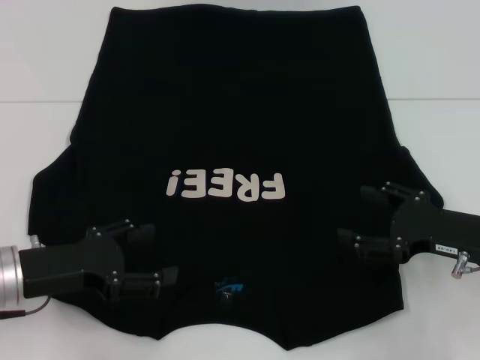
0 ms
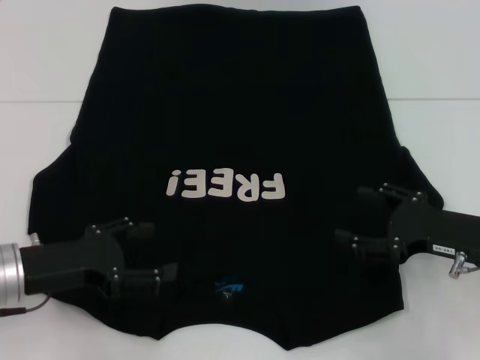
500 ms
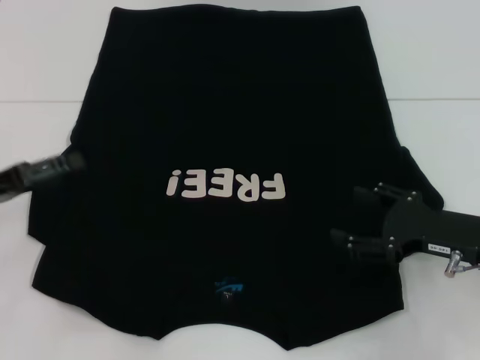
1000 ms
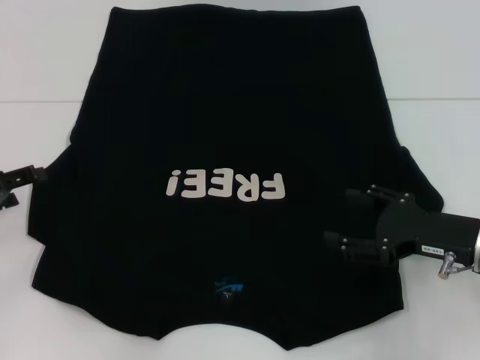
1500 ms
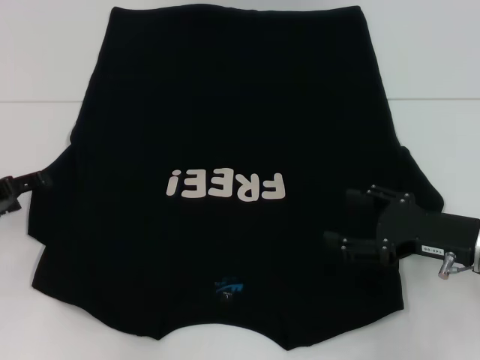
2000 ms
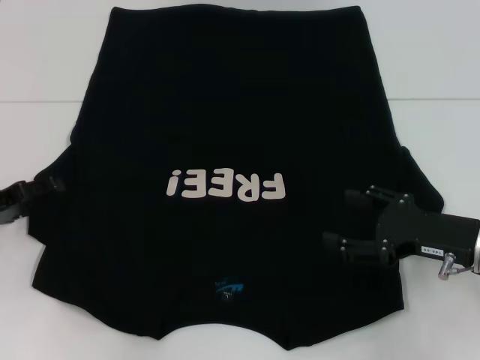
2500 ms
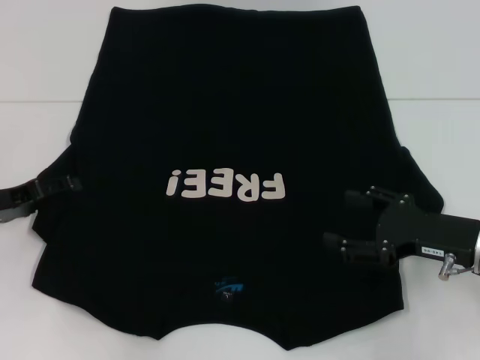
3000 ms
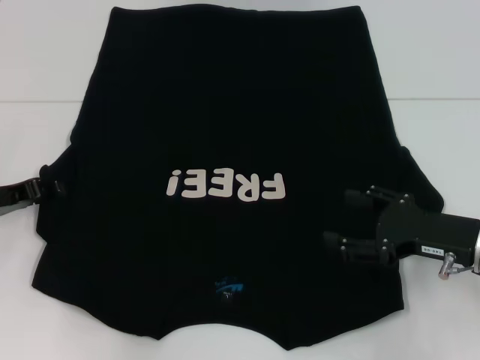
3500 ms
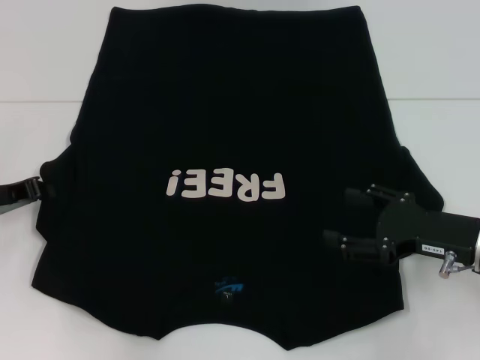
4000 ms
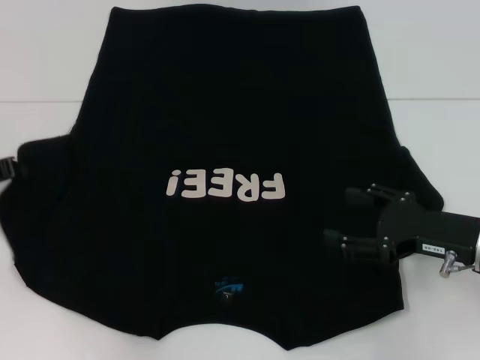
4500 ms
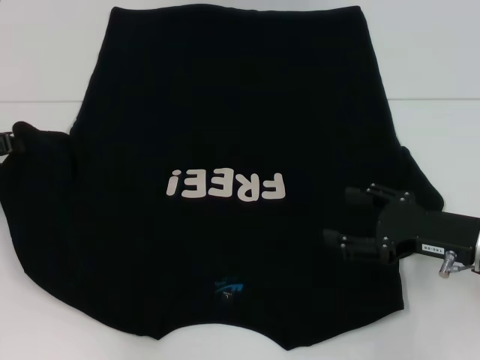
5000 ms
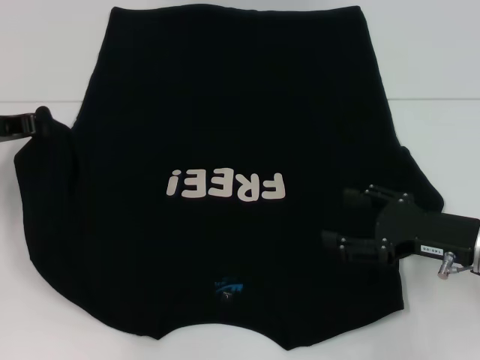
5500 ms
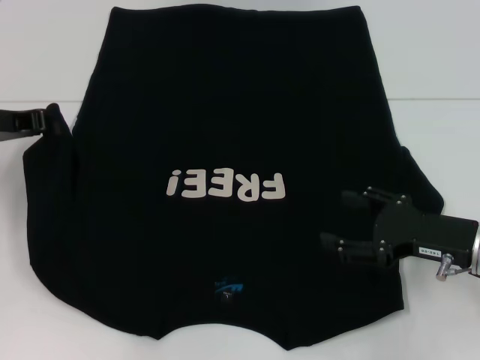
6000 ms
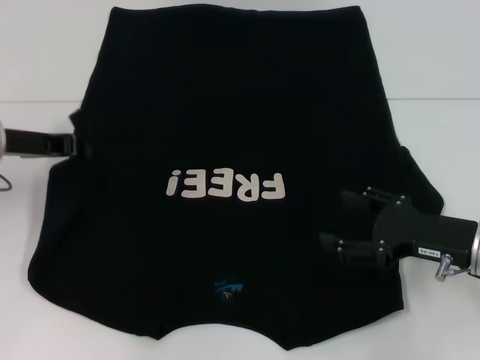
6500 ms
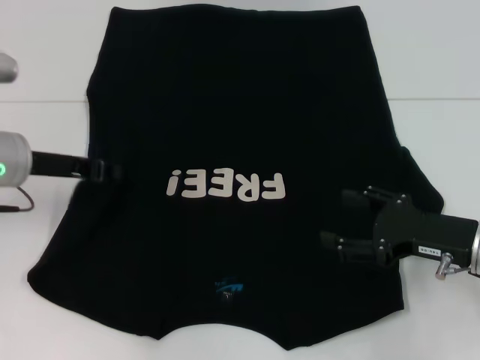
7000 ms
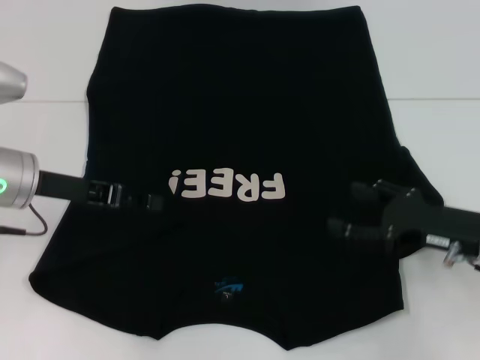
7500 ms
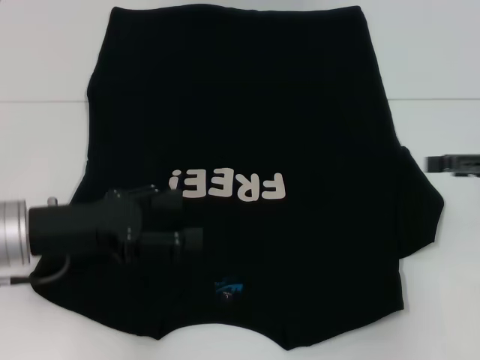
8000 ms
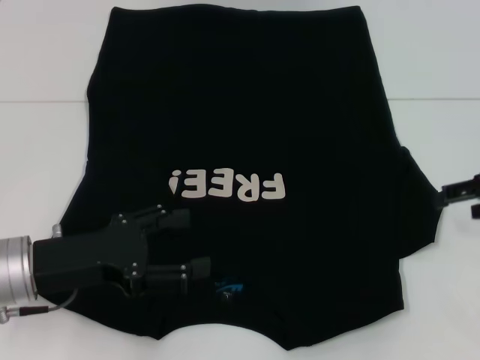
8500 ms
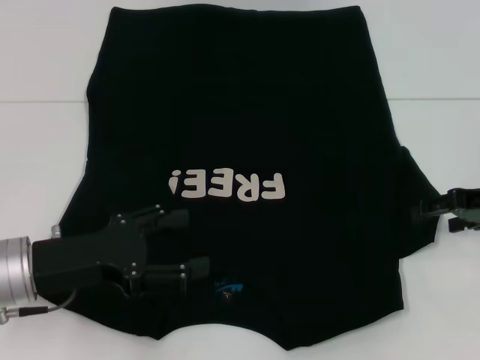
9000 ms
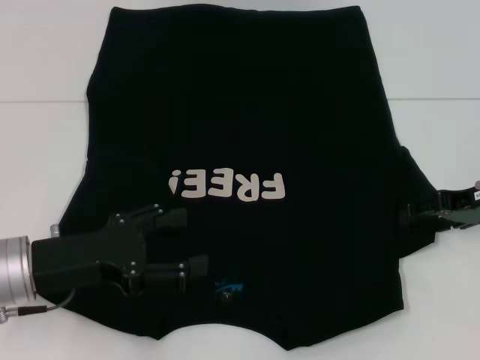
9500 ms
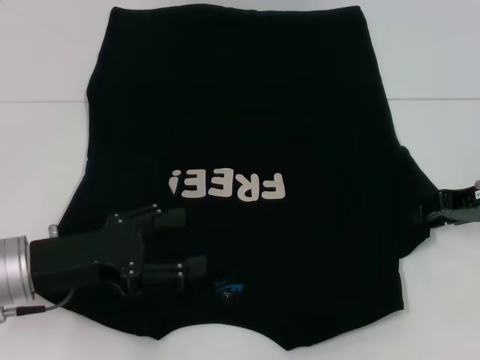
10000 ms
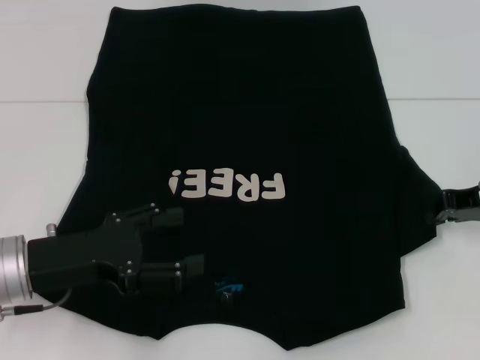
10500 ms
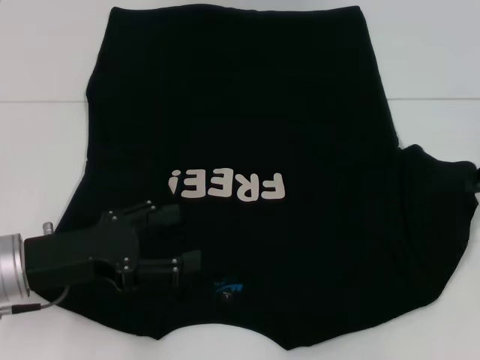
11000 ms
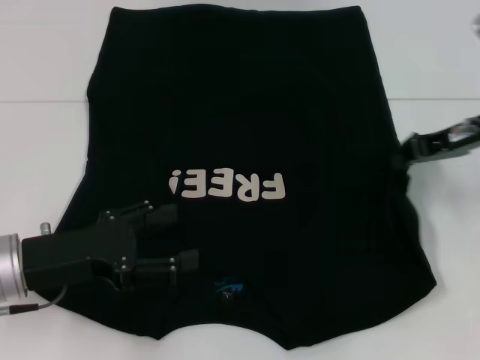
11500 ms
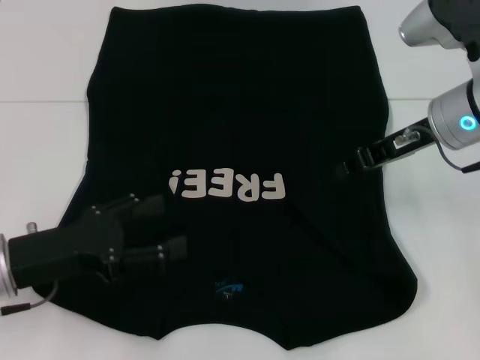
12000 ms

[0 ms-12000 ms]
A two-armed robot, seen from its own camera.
Step, 0 ms to 7500 ms: Fold the bottom left sleeve with your left hand.
0 ms to 2000 ms: The left gripper moves to the left and forward, approximately 10 cm.
2000 ms to 4000 ms: The left gripper closes up.
4000 ms to 6000 ms: The left gripper heads upward and forward, covering about 10 cm.
6000 ms to 8000 ms: The left gripper travels backward and to the right by about 15 cm, and opens. The right gripper shifts about 10 cm to the right and upward.
8000 ms to 10000 ms: The right gripper changes place by roughly 5 cm, and closes its fingers.
10000 ms to 12000 ms: The right gripper moves to the left and upward, some 10 cm, and closes its fingers.

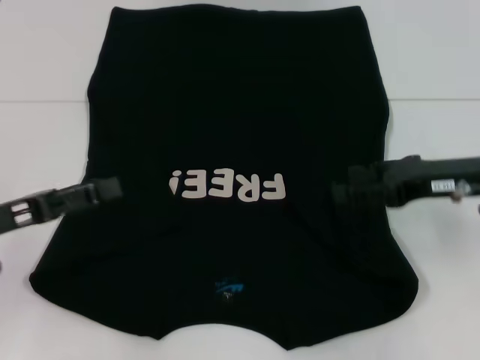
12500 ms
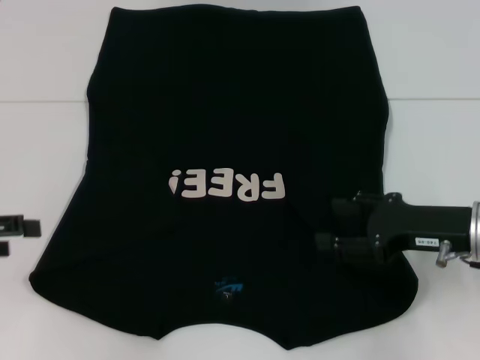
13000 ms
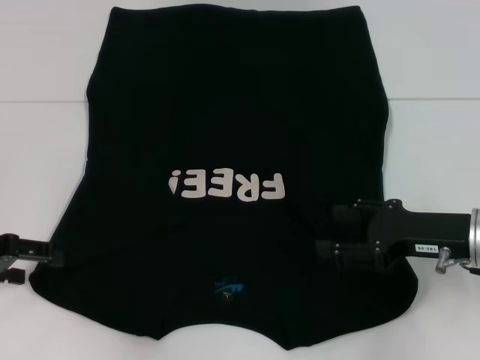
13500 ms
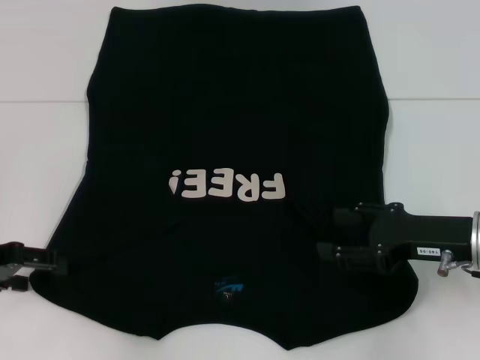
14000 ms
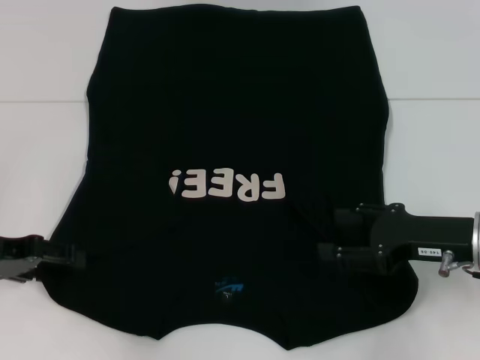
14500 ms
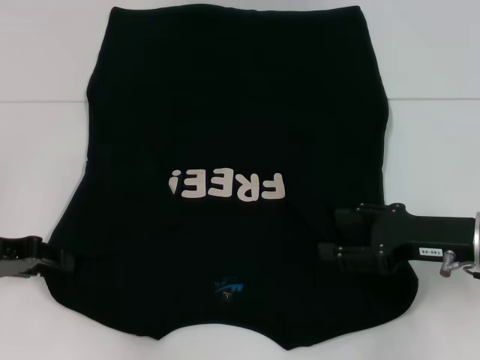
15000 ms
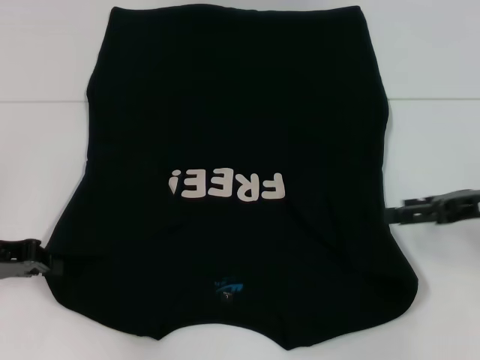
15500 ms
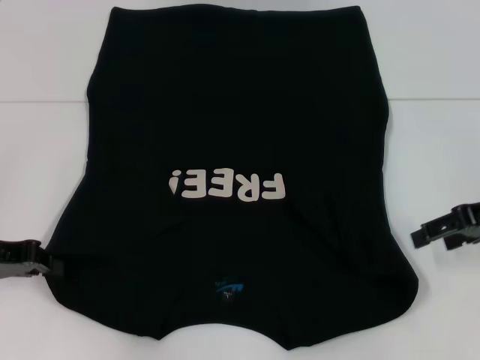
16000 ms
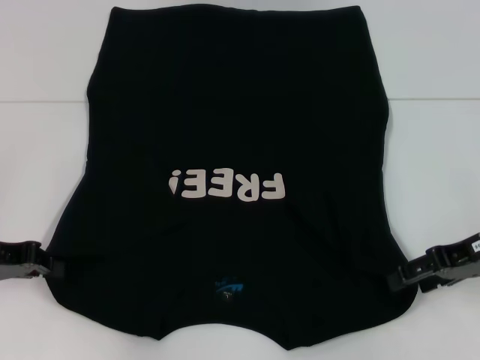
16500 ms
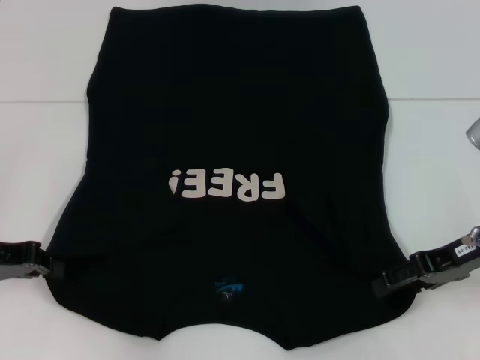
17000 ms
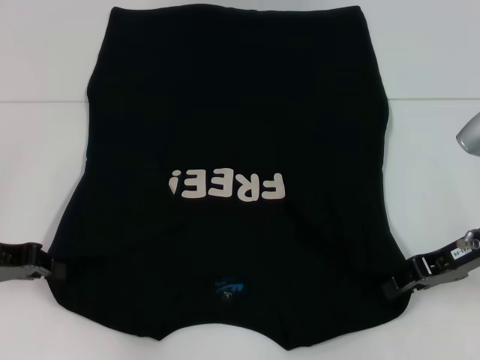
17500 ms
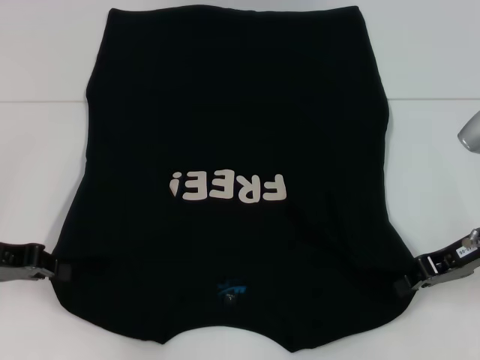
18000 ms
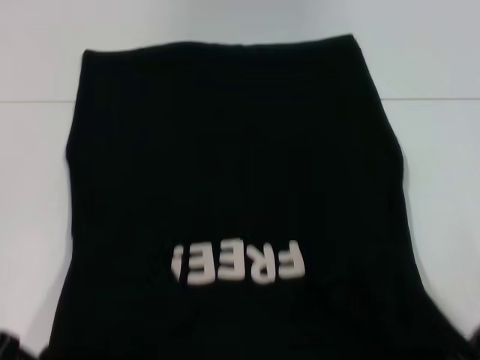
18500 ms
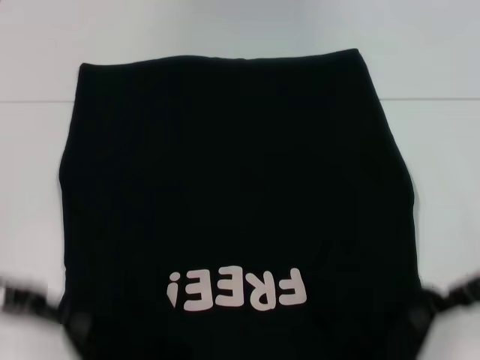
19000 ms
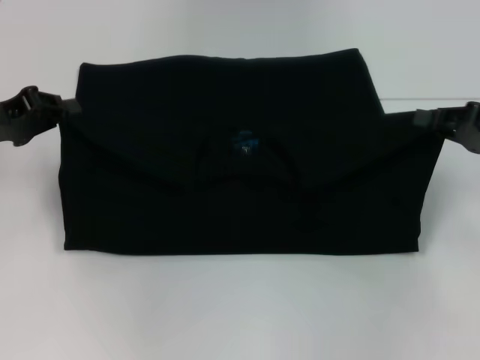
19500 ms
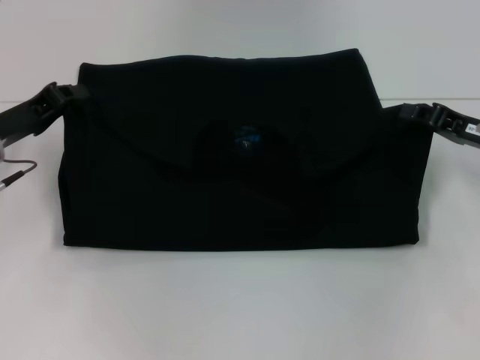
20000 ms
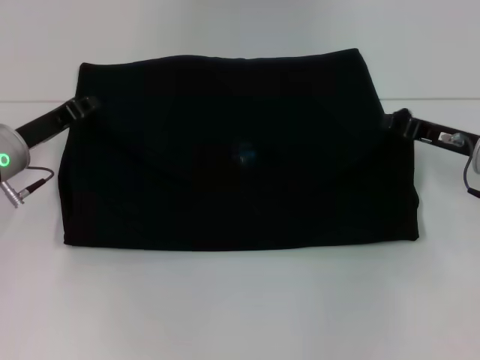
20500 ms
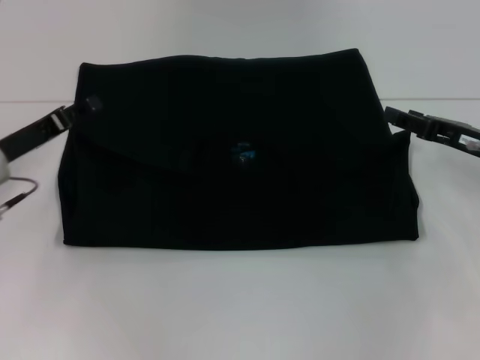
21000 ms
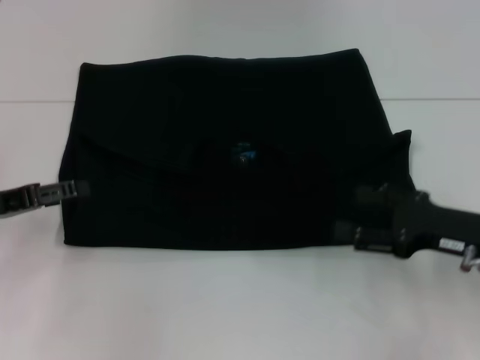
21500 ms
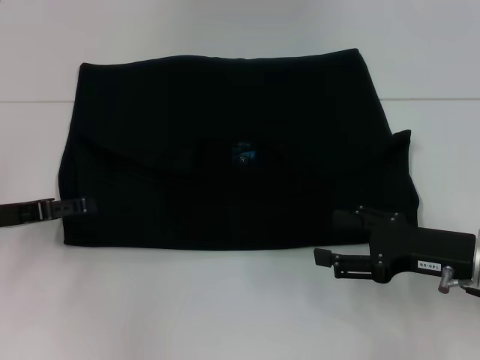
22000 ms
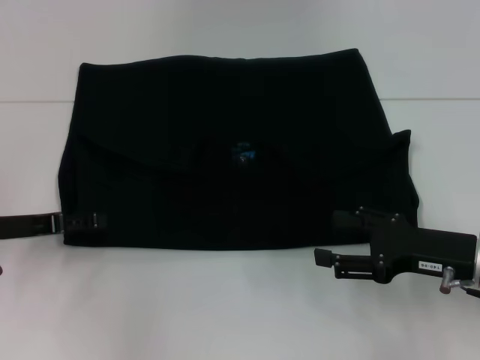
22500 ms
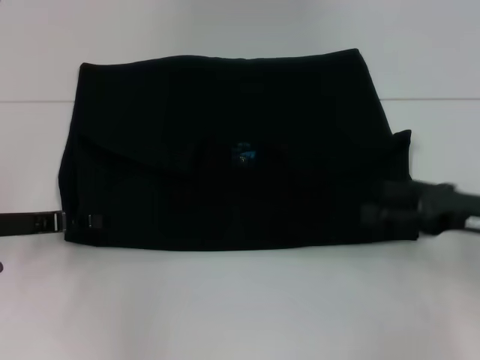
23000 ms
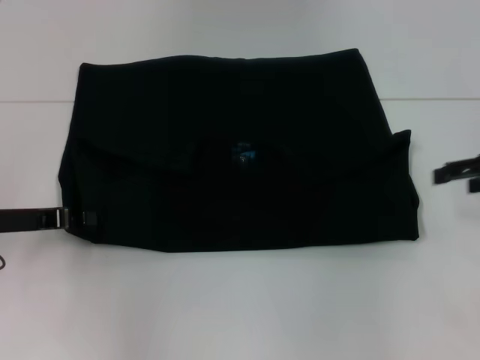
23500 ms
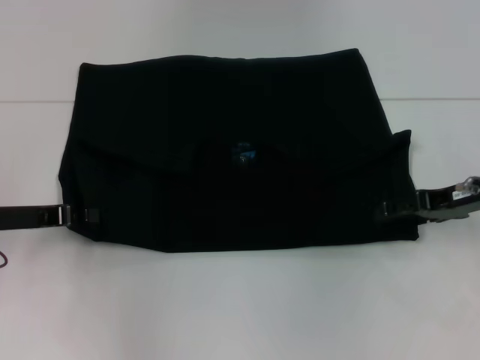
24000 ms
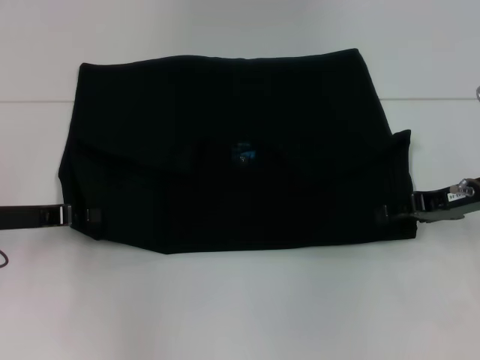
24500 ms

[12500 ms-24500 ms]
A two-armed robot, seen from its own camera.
Step, 12500 ms to 15000 ms: Grab the bottom left corner with your left hand.
Step, 15500 ms to 17500 ms: Grab the bottom right corner with your right hand.
Step, 18000 ms to 20500 ms: Fold the clothes with your left hand.
Step, 18000 ms to 20500 ms: Fold the clothes with your right hand.
12500 ms to 14500 ms: The right gripper moves downward, about 5 cm.
14500 ms to 16500 ms: The left gripper closes its fingers.
16500 ms to 18500 ms: The right gripper closes its fingers.
18500 ms to 20500 ms: The left gripper shifts roughly 15 cm forward and to the right, while the right gripper is displaced forward by some 10 cm.
20500 ms to 22500 ms: The left gripper goes about 5 cm backward, and opens up, while the right gripper heads backward, covering some 10 cm, and opens its fingers.
22500 ms to 24500 ms: The right gripper travels forward by about 10 cm. Meanwhile the left gripper closes up.

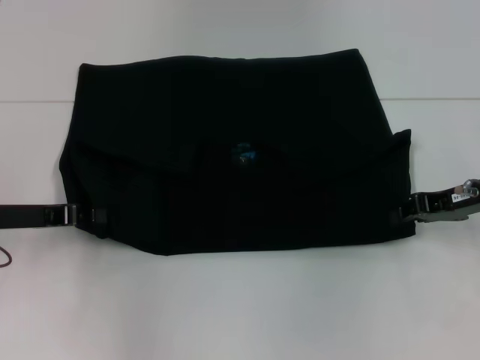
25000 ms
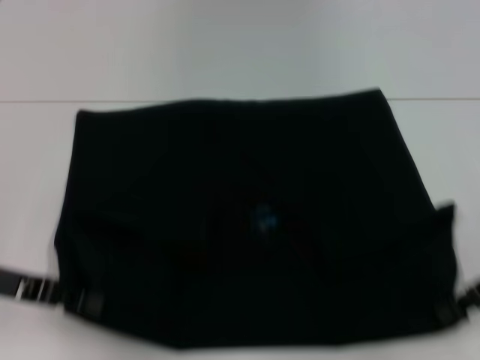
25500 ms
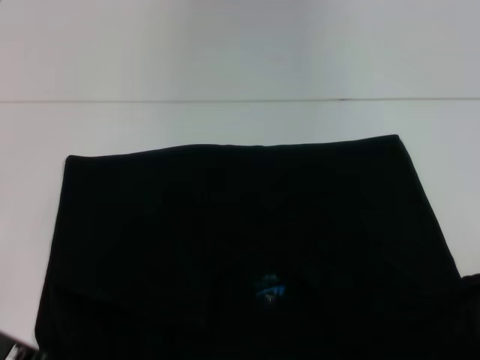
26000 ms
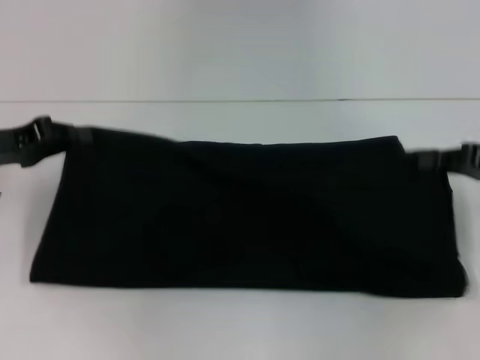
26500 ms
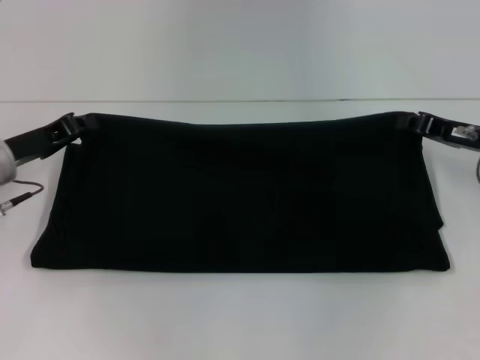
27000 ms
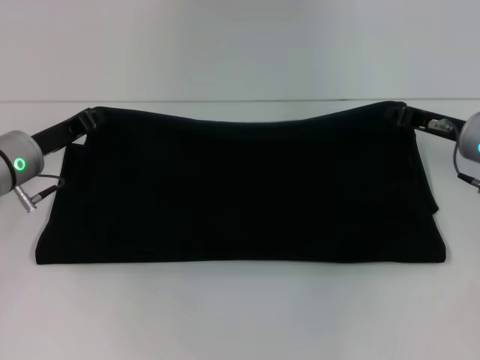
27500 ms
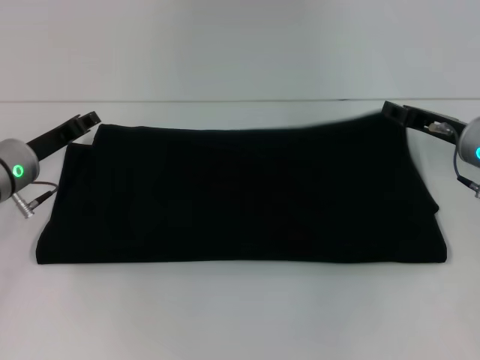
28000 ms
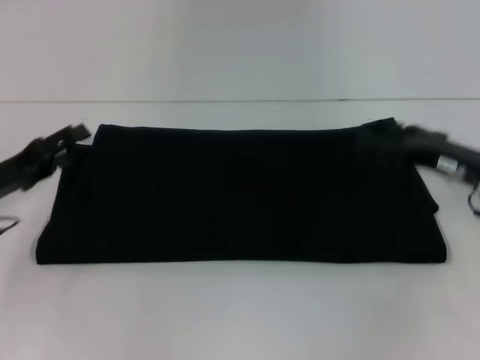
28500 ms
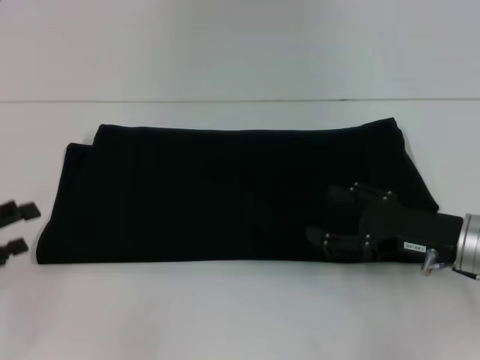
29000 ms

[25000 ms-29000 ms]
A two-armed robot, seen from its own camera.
Step, 26000 ms to 28000 ms: Fold the clothes with your right hand.
25000 ms to 27000 ms: The right gripper travels backward and back again, some 10 cm each way.
27000 ms to 29000 ms: The right gripper shifts about 10 cm backward, and opens its fingers. The left gripper travels backward and to the left by roughly 15 cm, and opens up.
